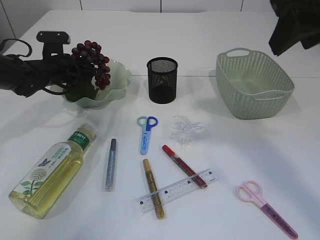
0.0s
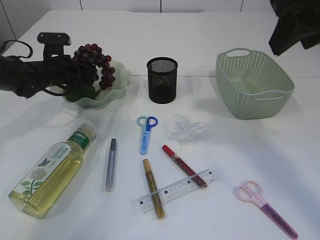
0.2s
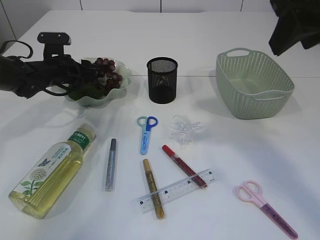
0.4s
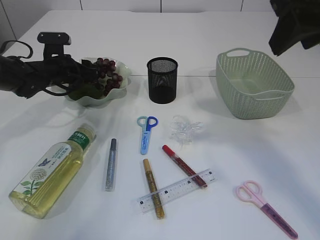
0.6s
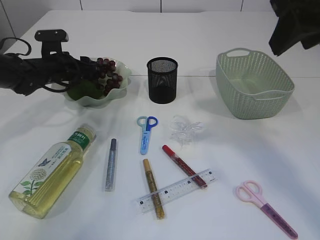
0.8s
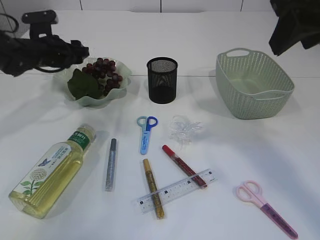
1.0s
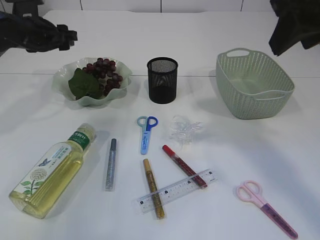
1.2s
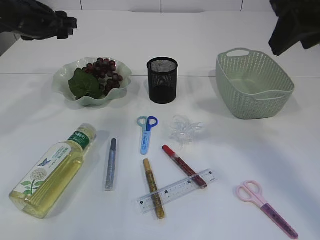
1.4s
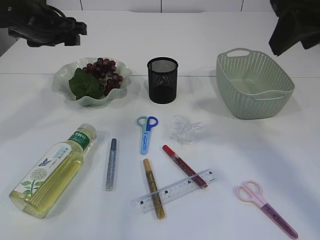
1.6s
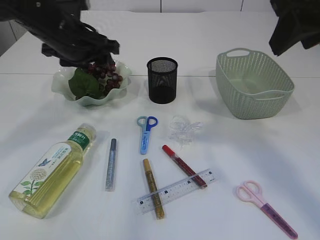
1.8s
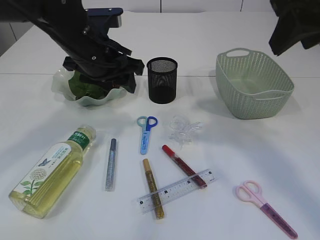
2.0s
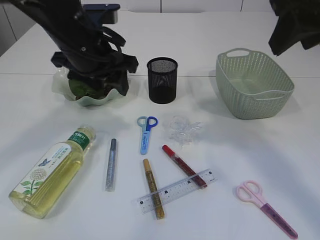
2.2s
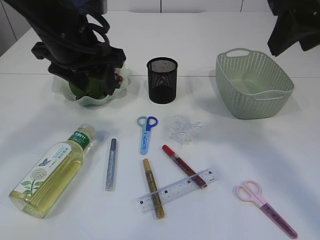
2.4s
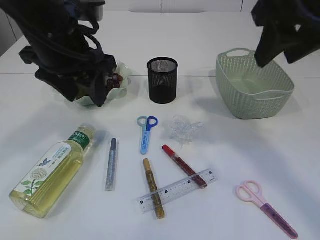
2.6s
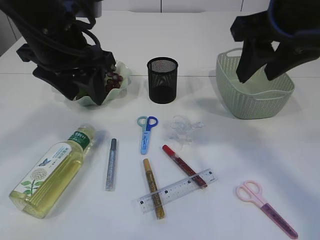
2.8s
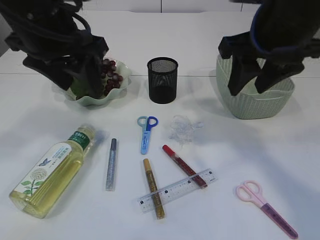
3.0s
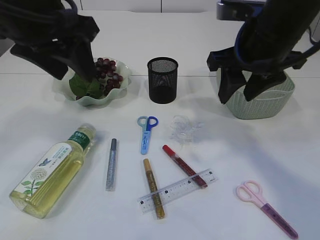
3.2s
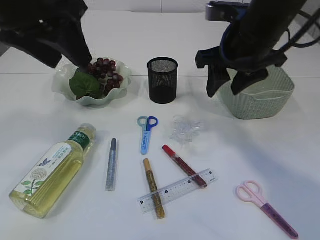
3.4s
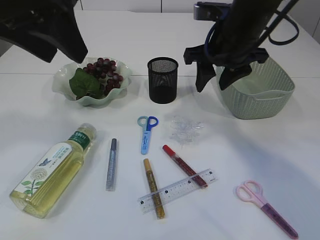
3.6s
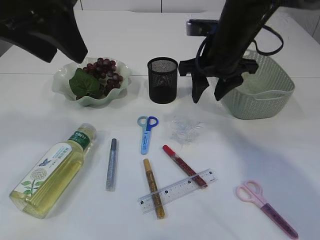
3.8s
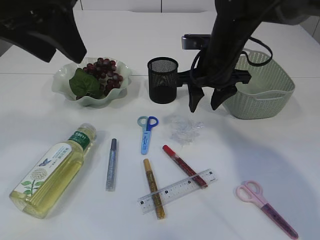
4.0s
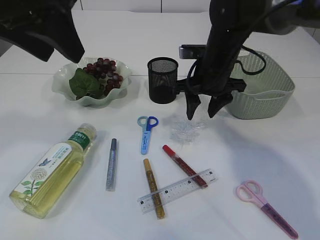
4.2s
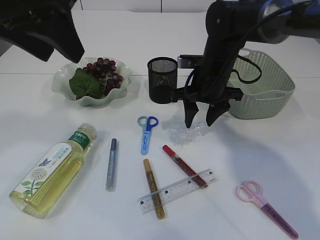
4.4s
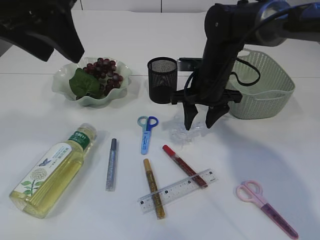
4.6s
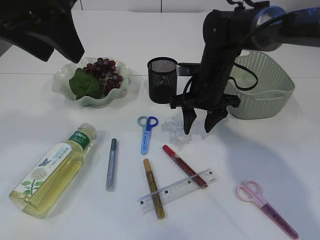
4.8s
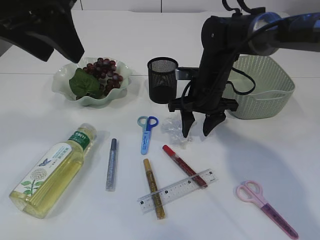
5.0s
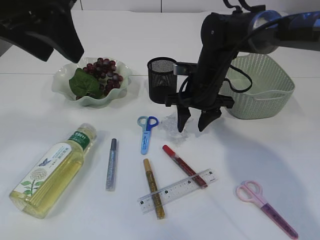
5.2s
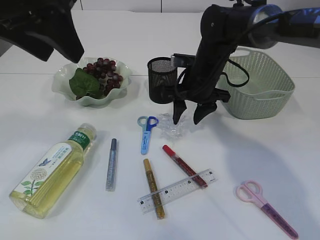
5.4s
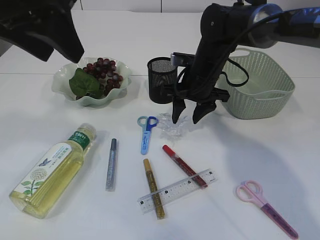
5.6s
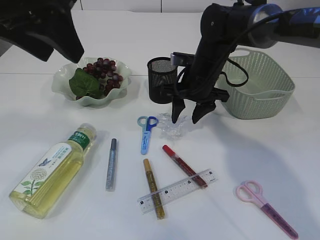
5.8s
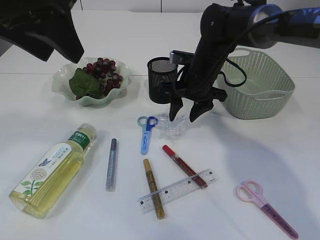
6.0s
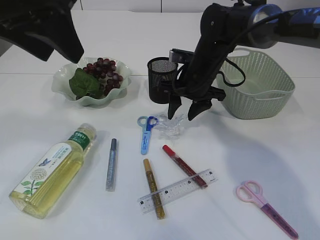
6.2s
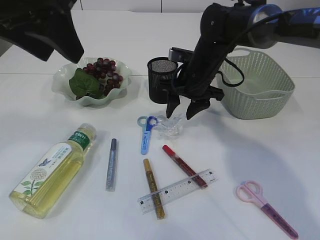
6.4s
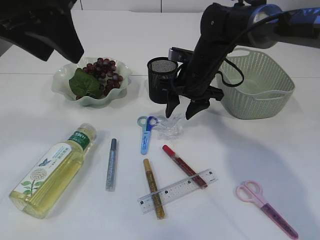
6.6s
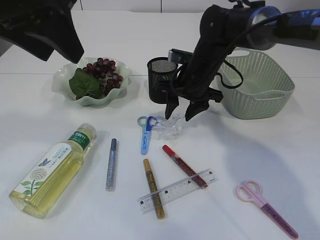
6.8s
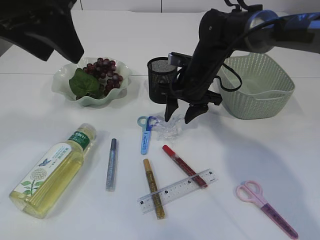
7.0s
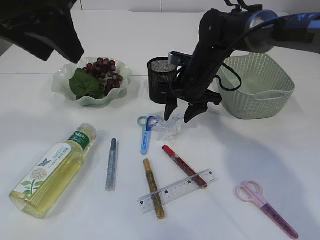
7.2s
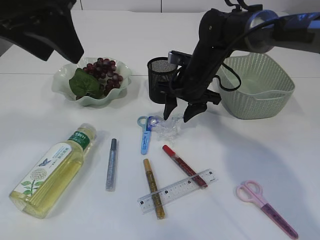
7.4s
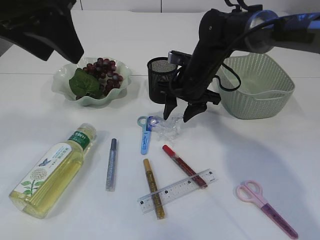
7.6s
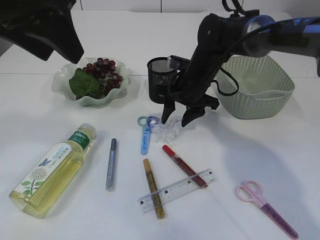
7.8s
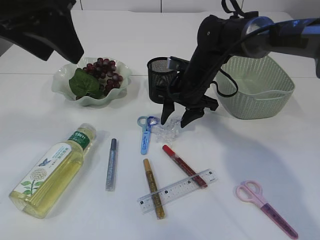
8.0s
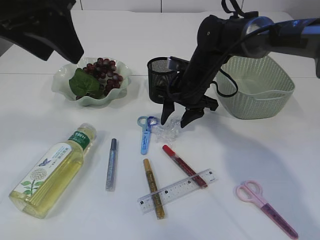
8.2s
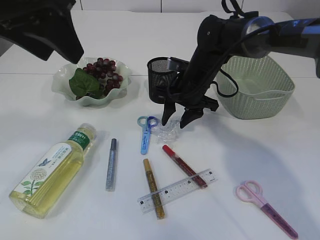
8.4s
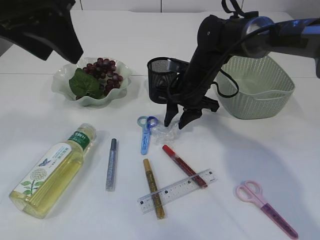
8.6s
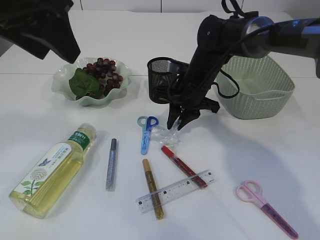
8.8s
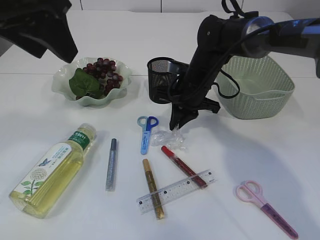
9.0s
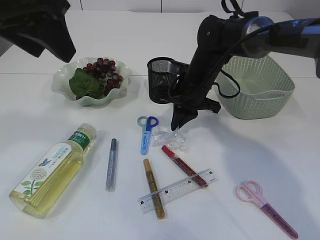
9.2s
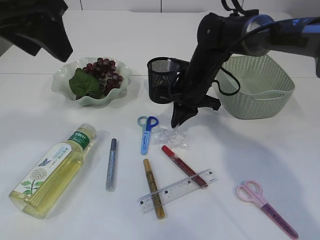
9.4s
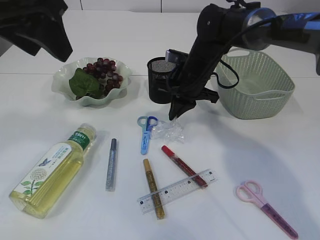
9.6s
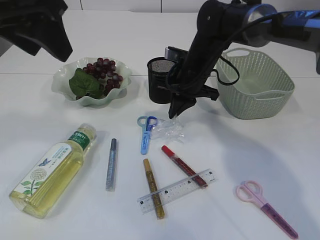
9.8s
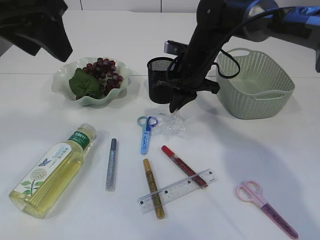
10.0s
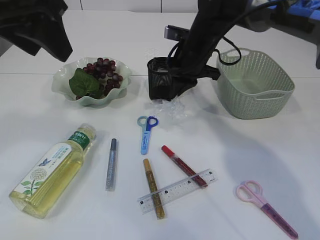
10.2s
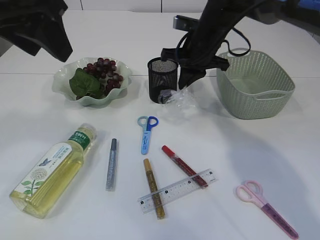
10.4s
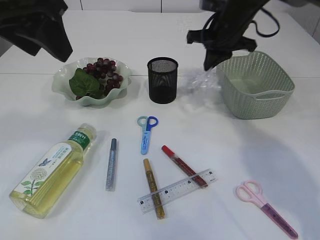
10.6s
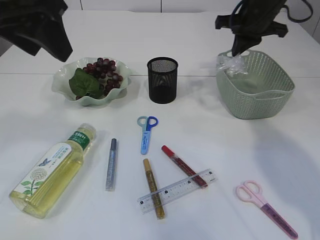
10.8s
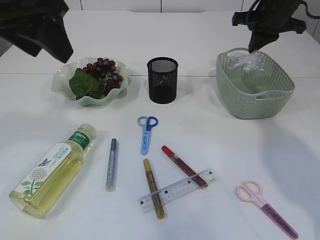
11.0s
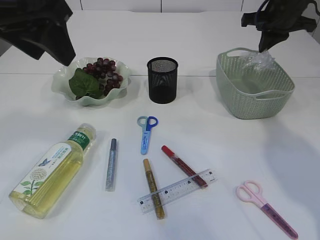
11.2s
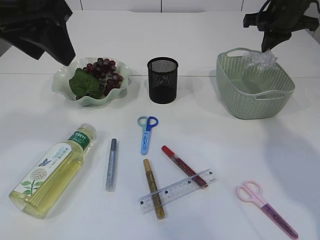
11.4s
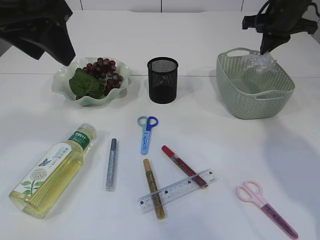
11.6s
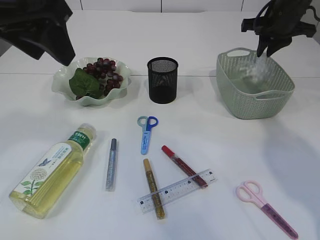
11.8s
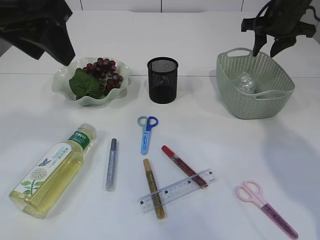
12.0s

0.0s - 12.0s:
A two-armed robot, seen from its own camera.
Step, 1.6s - 10.4s: Pick up the plastic.
0.0s - 1.6s: The left gripper travels upward and backward by roughly 15 cm.
1.6s - 3.0s: The left gripper travels backward, to the right and upward by approximately 15 cm, while the right gripper moves downward, approximately 5 cm.
3.0s - 4.4s: The left gripper is displaced upward by approximately 5 cm. Meanwhile the right gripper travels downward and forward by about 20 cm.
4.4s - 6.0s: The grippers stay close to where they were, moving slightly.
6.0s - 7.6s: Both grippers stay about where they are.
7.6s - 9.0s: The right gripper closes up.
9.0s - 10.4s: The right gripper travels upward by approximately 5 cm.
10.4s - 12.0s: The right gripper travels to the right by some 15 cm, and opens its fingers.

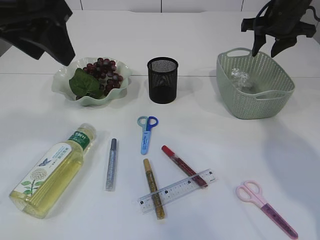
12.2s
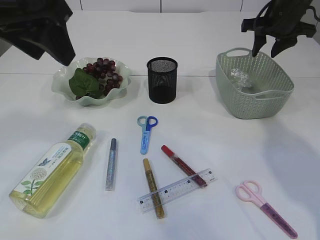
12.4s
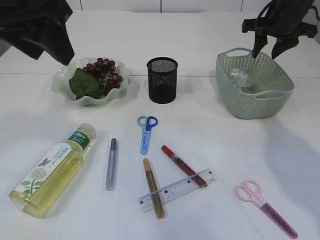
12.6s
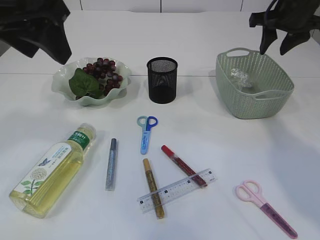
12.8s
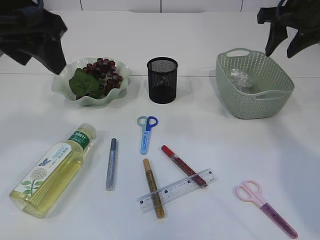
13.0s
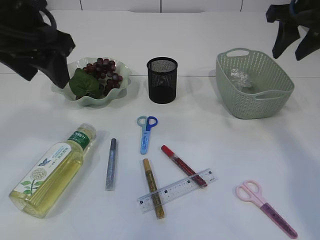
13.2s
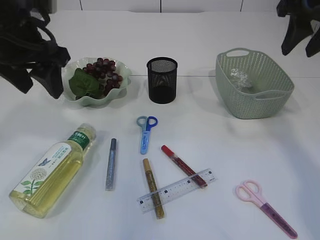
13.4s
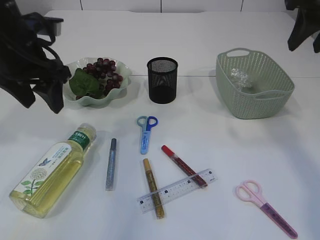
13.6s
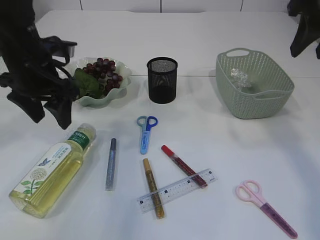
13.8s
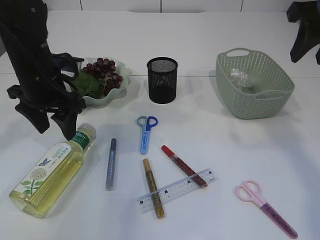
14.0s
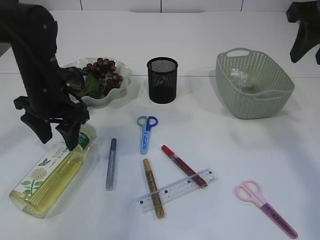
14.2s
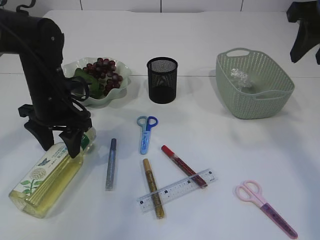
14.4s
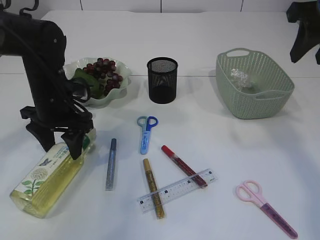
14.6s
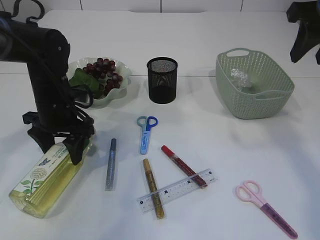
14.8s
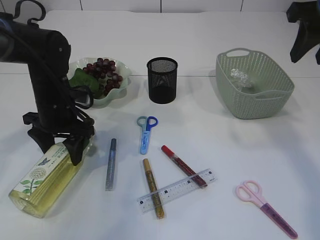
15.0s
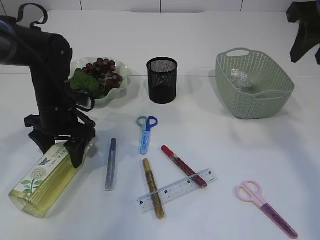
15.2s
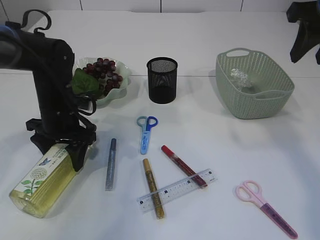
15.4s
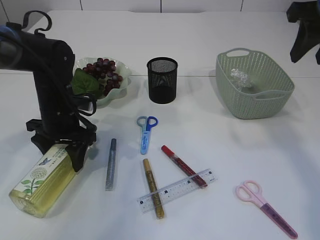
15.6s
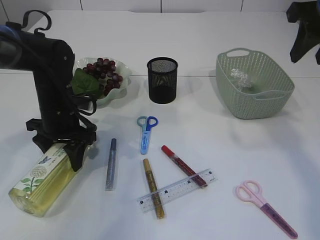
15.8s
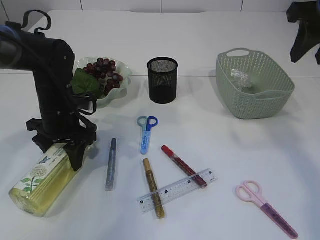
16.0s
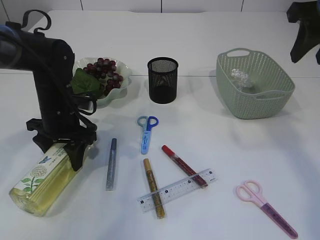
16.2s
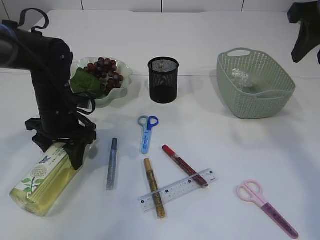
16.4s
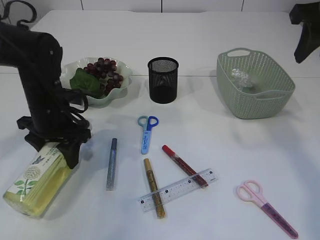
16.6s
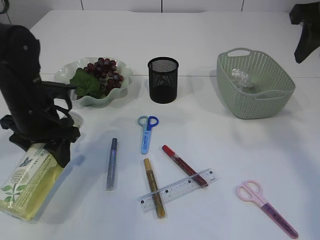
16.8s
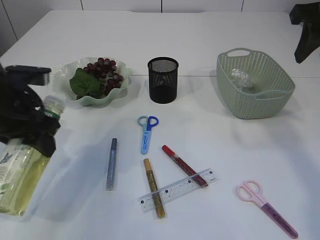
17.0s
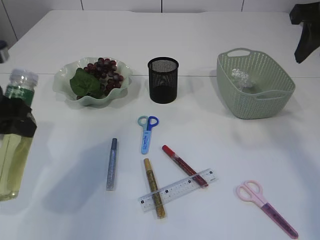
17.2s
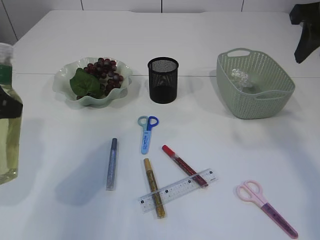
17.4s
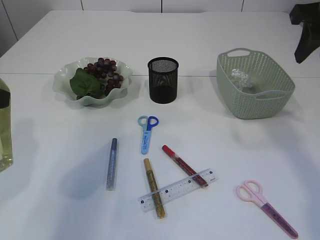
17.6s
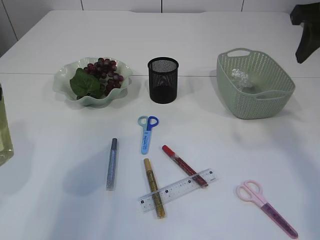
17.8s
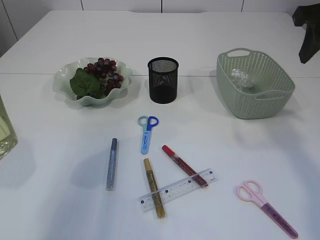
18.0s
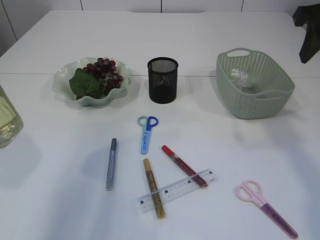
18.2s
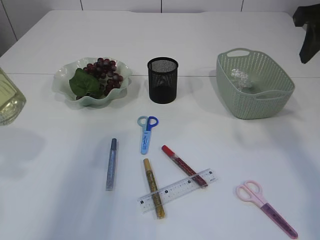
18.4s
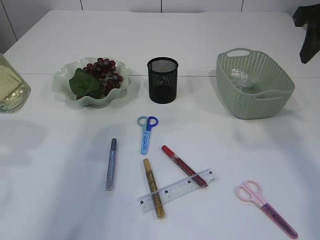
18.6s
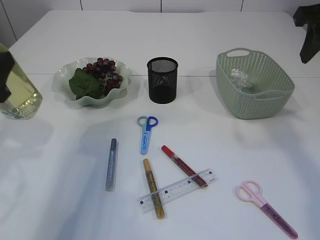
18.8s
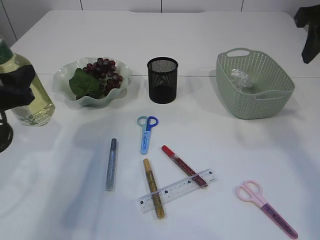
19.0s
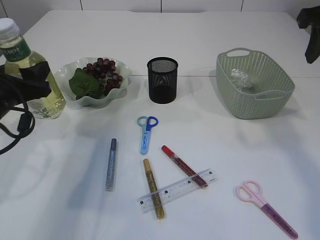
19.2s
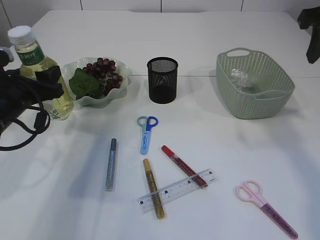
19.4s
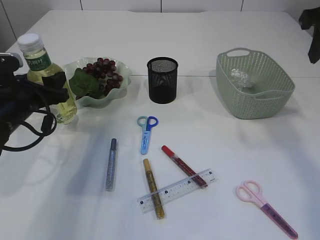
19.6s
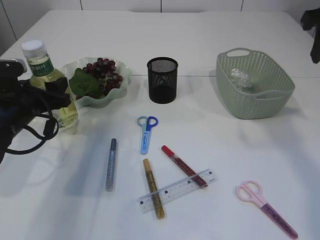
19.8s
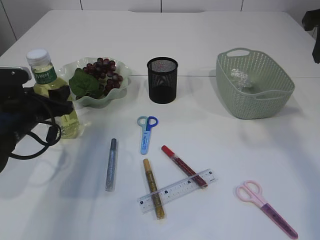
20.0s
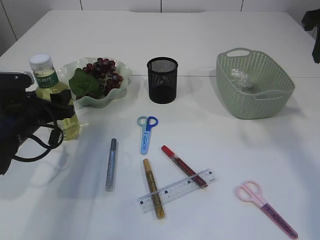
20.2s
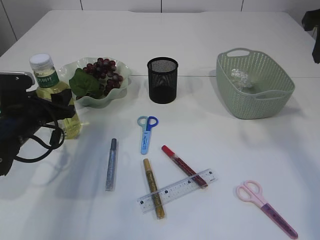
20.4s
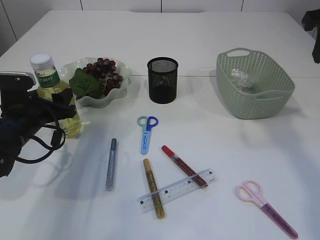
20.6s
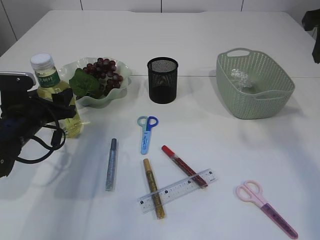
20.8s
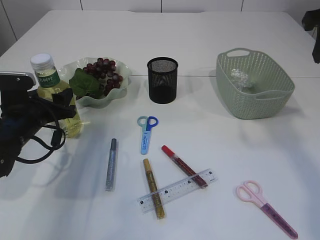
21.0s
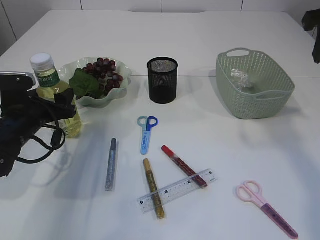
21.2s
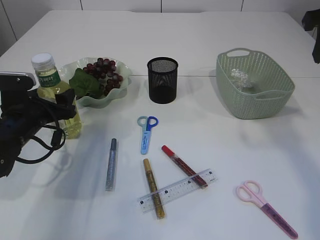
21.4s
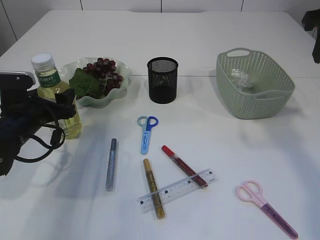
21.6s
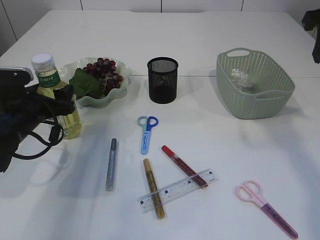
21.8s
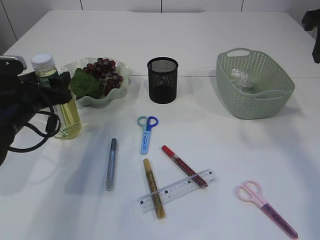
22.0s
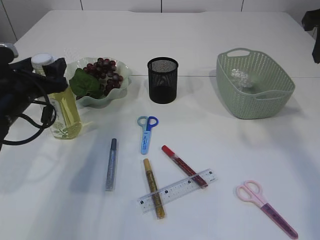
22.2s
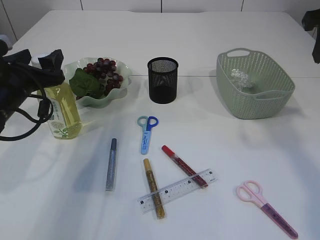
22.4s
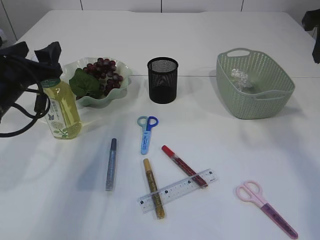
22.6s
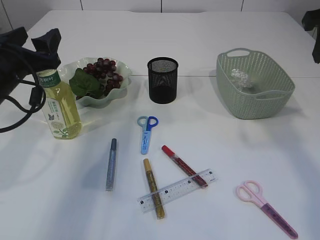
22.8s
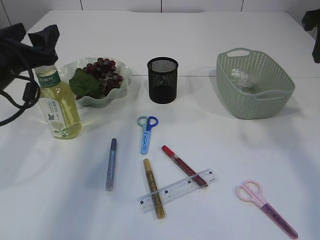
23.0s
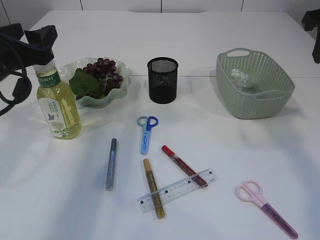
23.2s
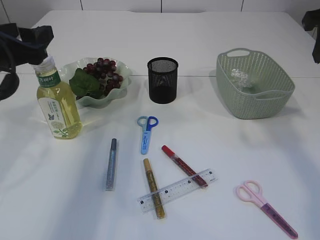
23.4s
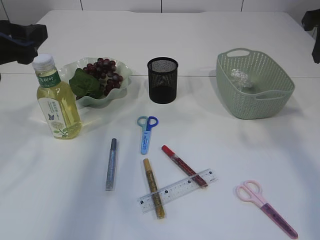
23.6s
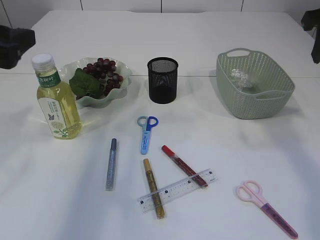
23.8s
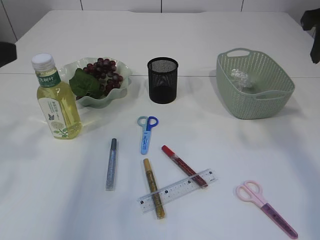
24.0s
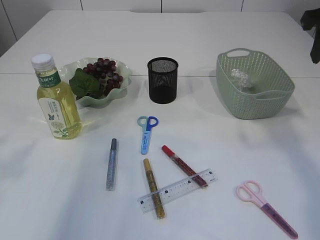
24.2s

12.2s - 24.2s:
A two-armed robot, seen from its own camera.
Step, 13.0s - 16.8s: Pick up the bottle with the left arm.
Step, 17.0s - 23.2s: Place the bottle.
12.2s - 13.8s: The left gripper is displaced downward and forward by some 15 cm. Meanwhile the right gripper shifts approximately 20 cm backward and upward.
13.8s - 15.2s: The left gripper shifts some 10 cm downward.
15.2s - 16.6s: The grippers make only small movements.
16.6s - 18.2s: The left gripper moves backward, upward and to the left, roughly 25 cm.
18.2s - 19.8s: The left gripper moves forward and downward, about 20 cm.
19.8s - 21.2s: The grippers stay close to where they were, moving slightly.
21.2s - 22.6s: The left gripper goes about 10 cm upward.
22.6s - 24.2s: The left gripper travels backward and upward by about 20 cm.
